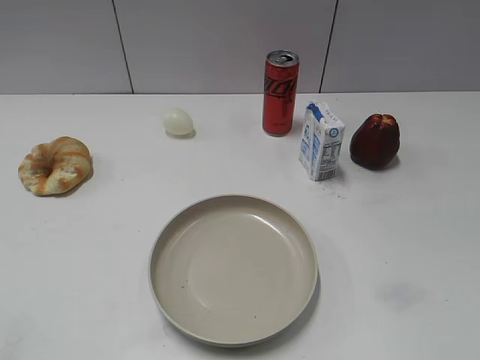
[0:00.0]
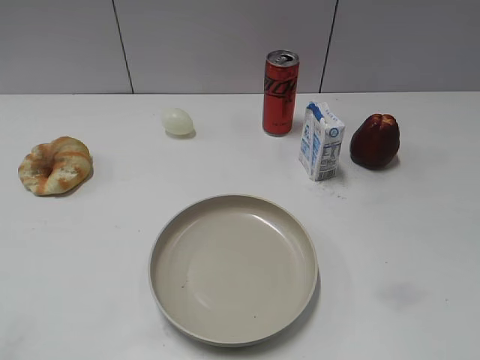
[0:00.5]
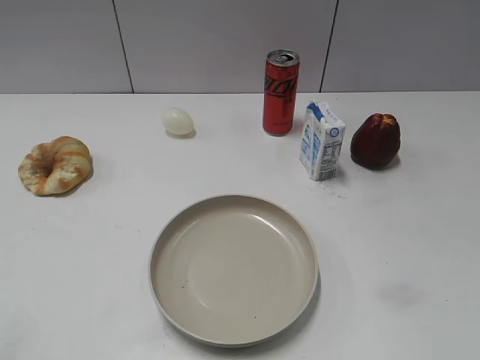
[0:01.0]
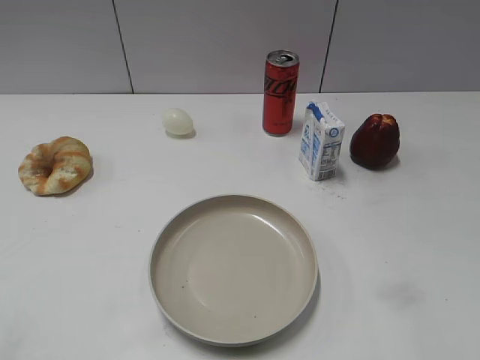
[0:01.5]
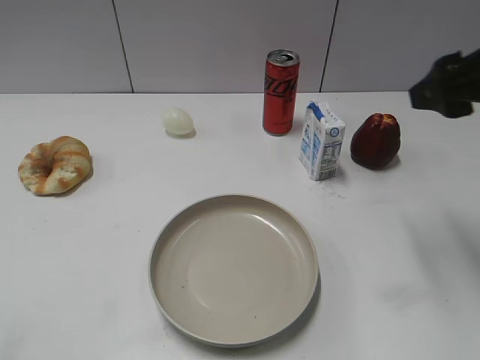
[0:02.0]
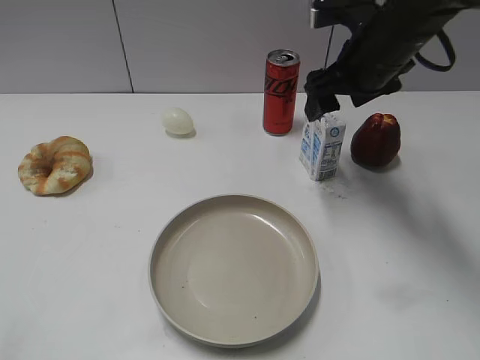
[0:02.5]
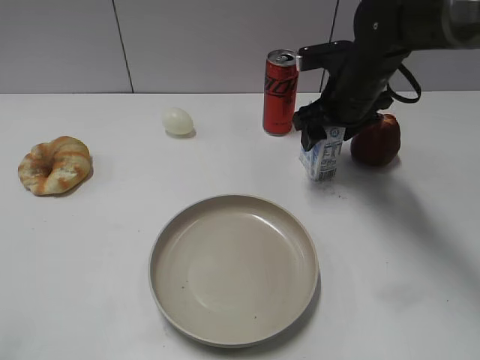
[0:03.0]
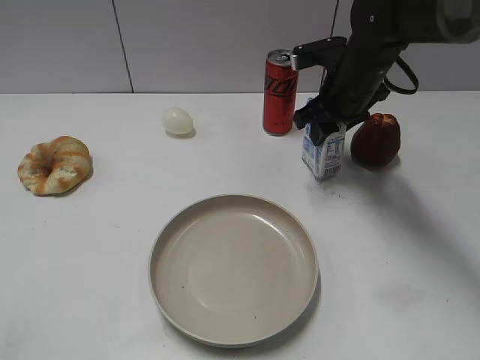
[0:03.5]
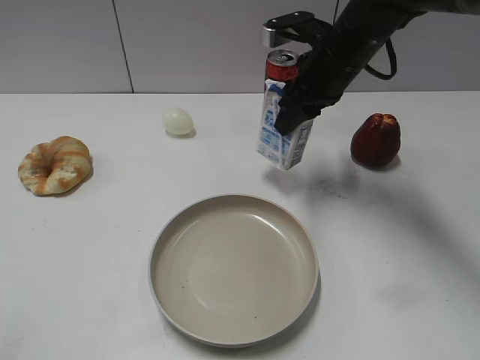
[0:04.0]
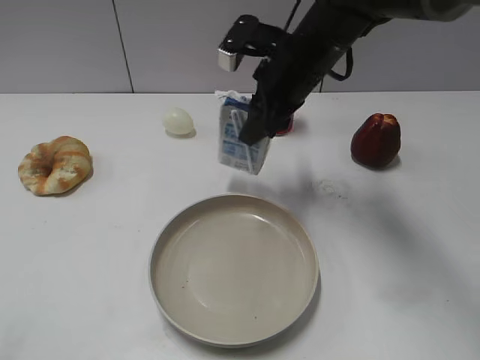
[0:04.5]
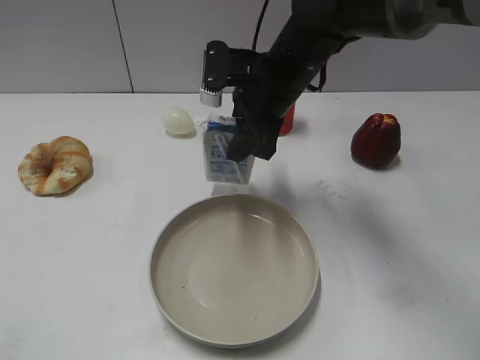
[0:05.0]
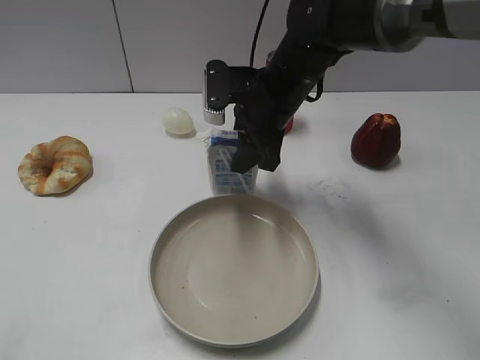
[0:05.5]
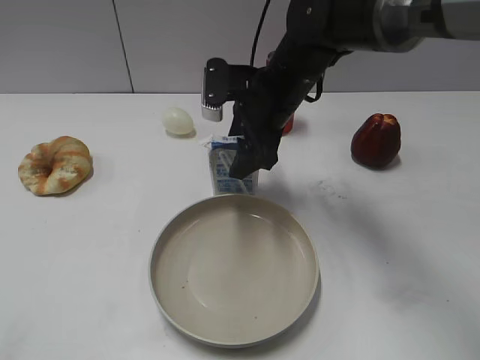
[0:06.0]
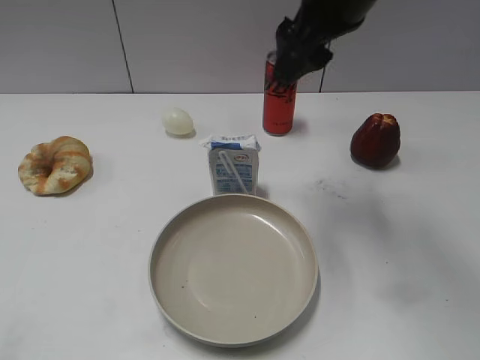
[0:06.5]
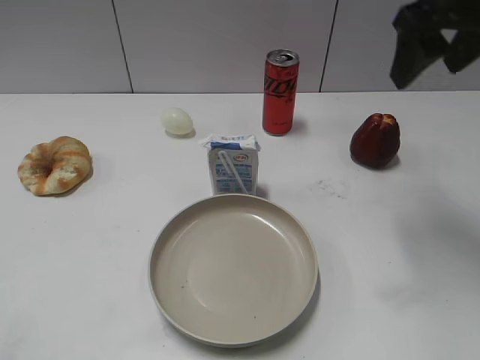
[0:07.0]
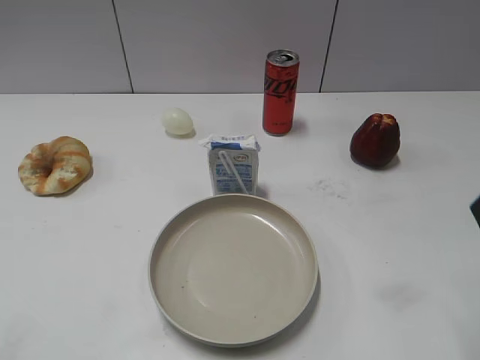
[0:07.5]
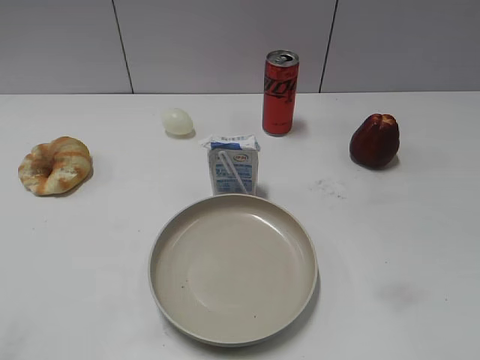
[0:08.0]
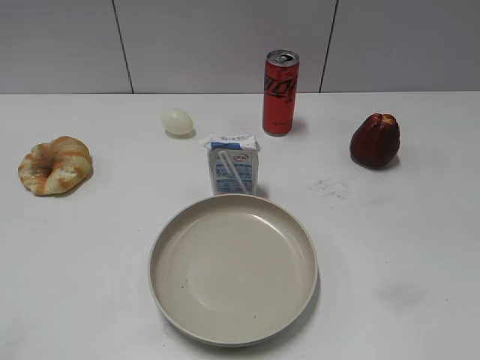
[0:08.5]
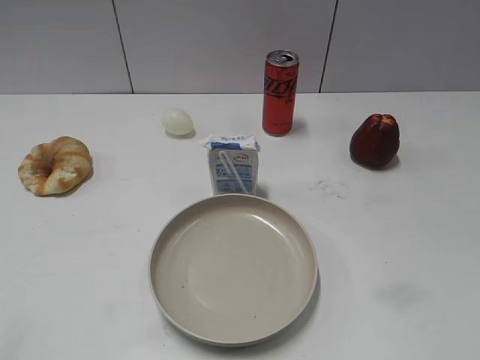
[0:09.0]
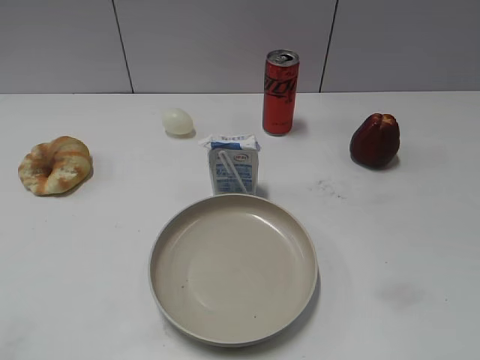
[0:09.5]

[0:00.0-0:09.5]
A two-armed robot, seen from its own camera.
Step, 0:01.0 to 0:03.0: Grasp the milk with right gripper.
Step, 0:03.5 to 0:06.0: Place the milk on the table with right gripper.
0:02.0 to 0:04.0: The right gripper is displaced forward, to the left and downward by about 20 cm, and closes up.
0:04.0 to 0:05.5: The right gripper travels to the left by about 5 cm.
0:05.5 to 0:07.5: The right gripper shifts about 30 cm backward, to the right and upward, and opens up.

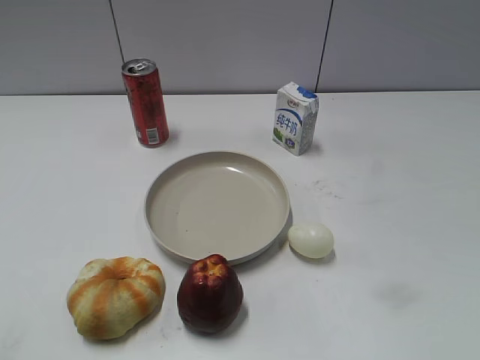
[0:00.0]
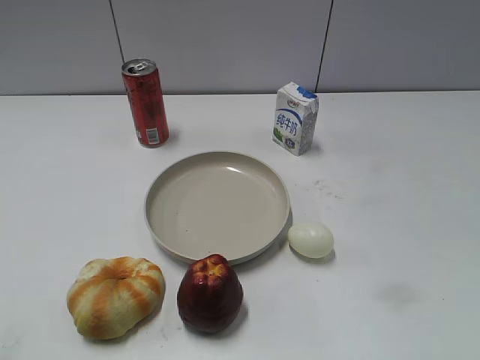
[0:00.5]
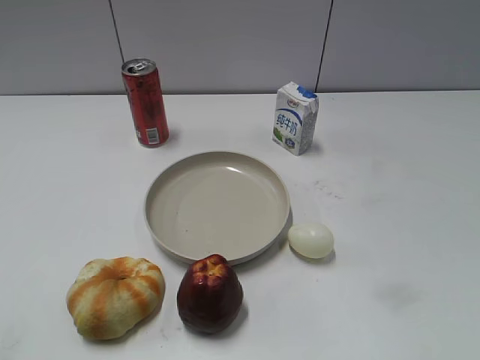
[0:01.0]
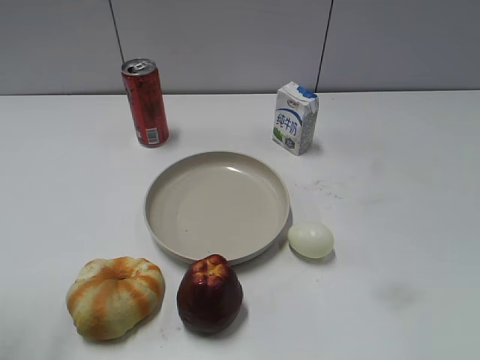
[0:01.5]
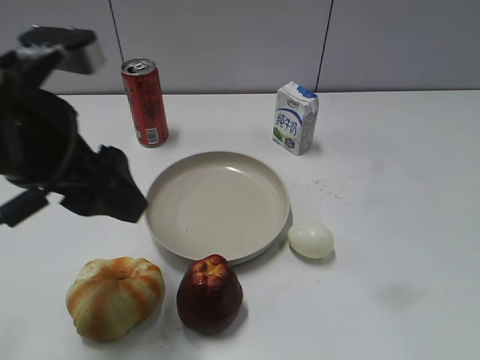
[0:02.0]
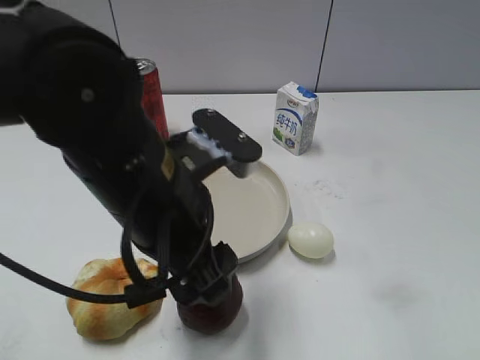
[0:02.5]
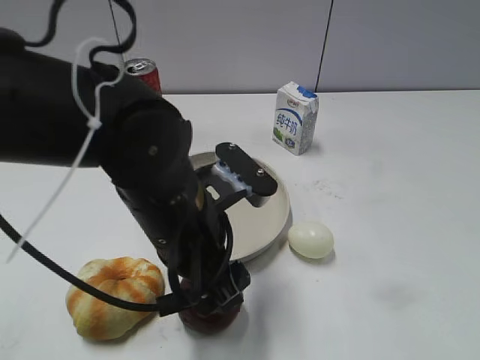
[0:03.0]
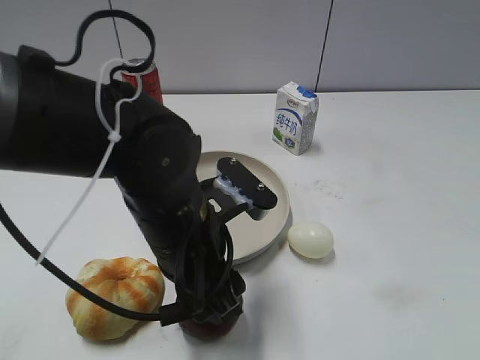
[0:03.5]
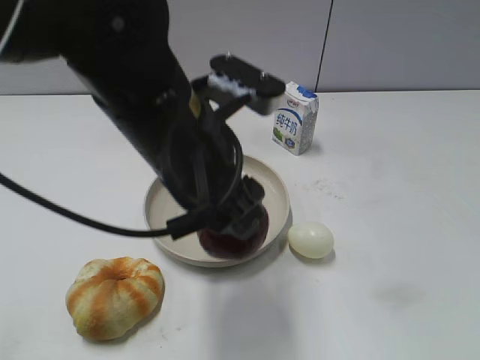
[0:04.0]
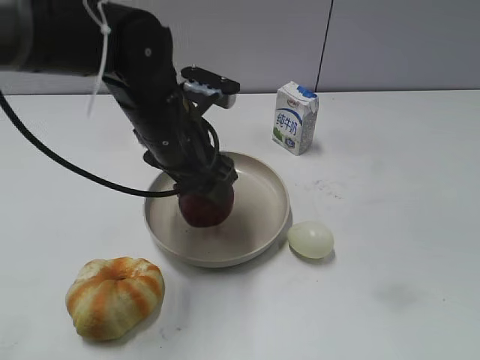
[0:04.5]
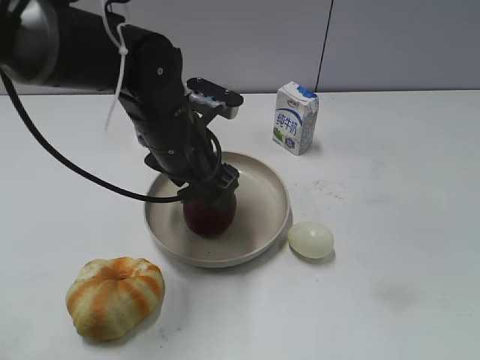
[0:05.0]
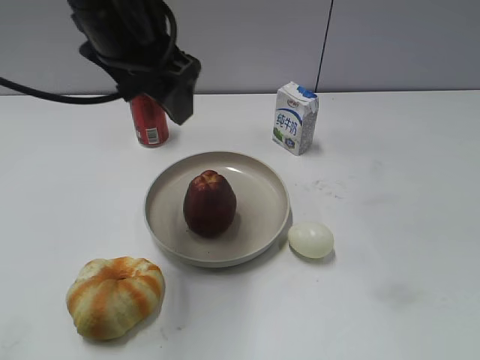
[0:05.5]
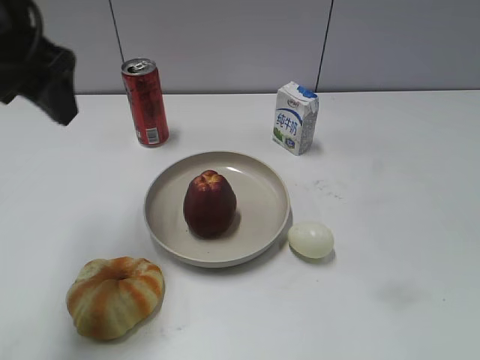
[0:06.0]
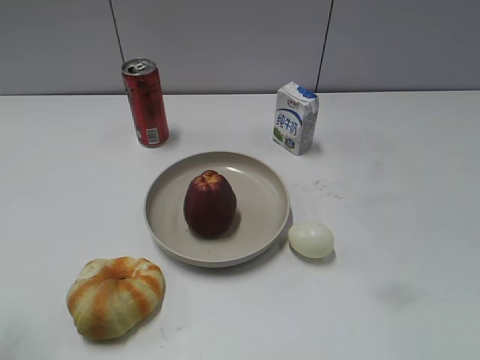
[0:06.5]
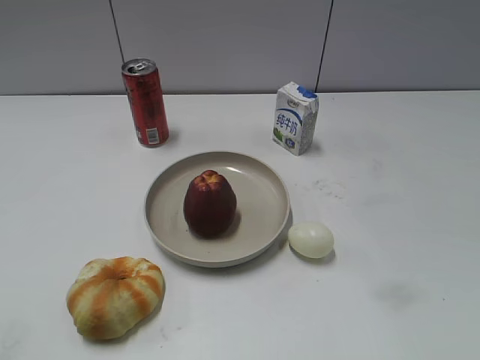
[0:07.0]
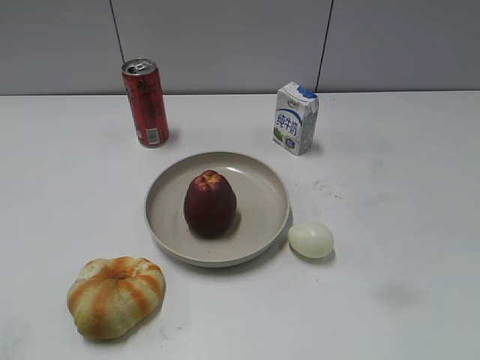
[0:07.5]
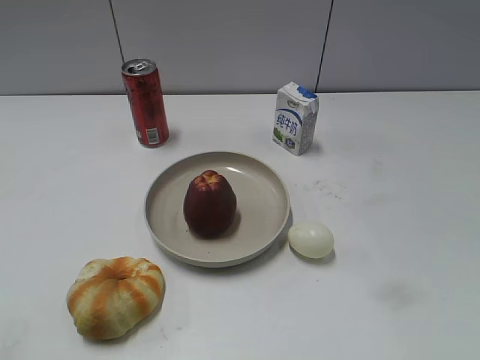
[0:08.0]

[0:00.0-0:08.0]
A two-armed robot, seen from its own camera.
Step, 0:01.0 to 0:03.0: Grasp the apple with left gripper.
Step, 0:03.5 to 0:05.0: Place the apple on the plate with left gripper.
0:02.0 to 0:04.0: The left gripper moves to the right, approximately 10 cm, and closes up.
0:04.0 to 0:06.0: The left gripper moves to the left and upward, roughly 15 cm, and opens its fingers.
0:06.0 to 0:08.0: The left gripper travels backward and to the left by about 30 cm, and closes.
